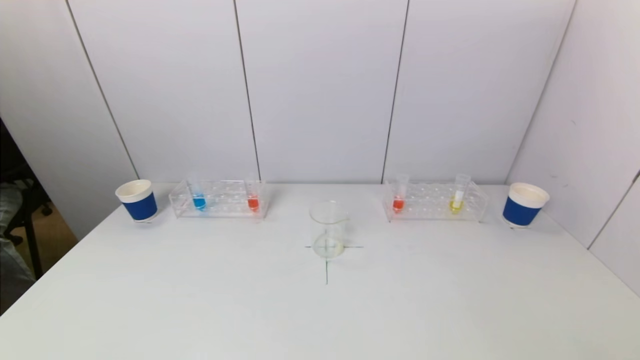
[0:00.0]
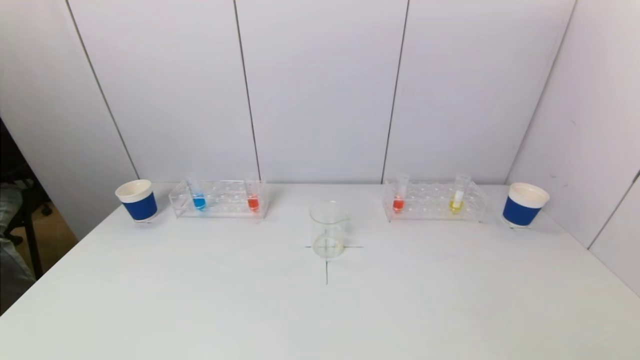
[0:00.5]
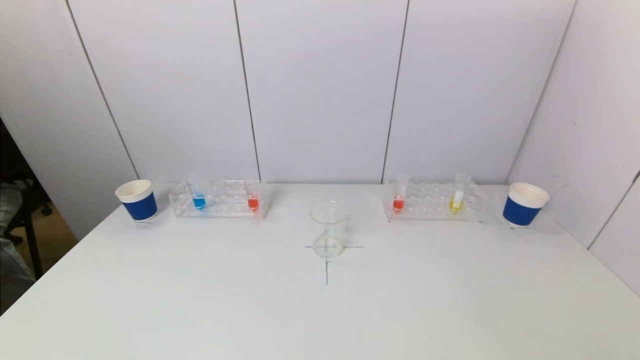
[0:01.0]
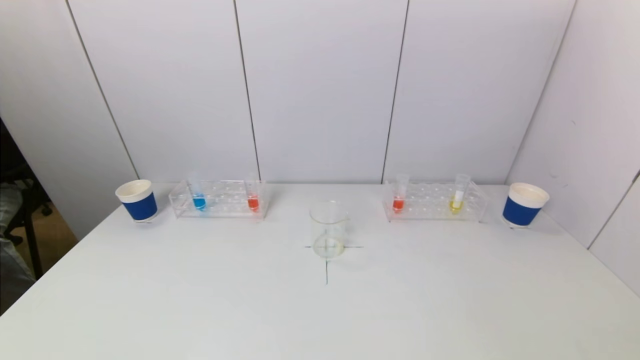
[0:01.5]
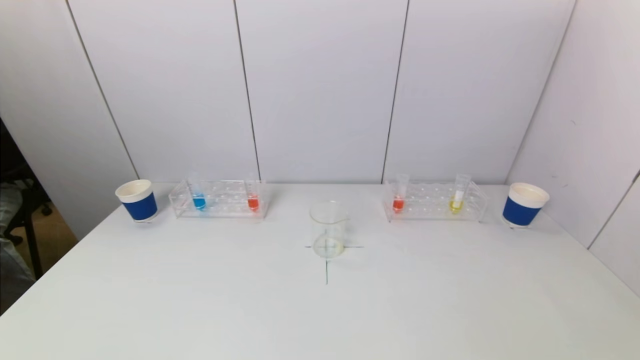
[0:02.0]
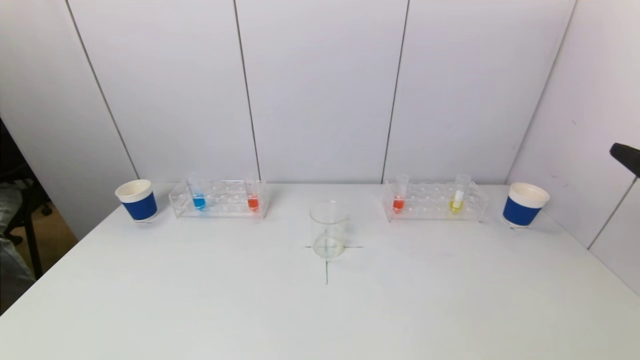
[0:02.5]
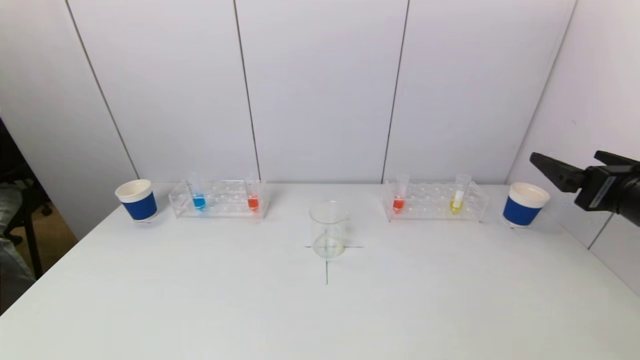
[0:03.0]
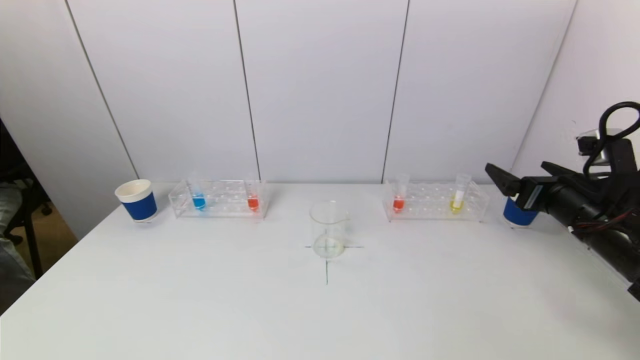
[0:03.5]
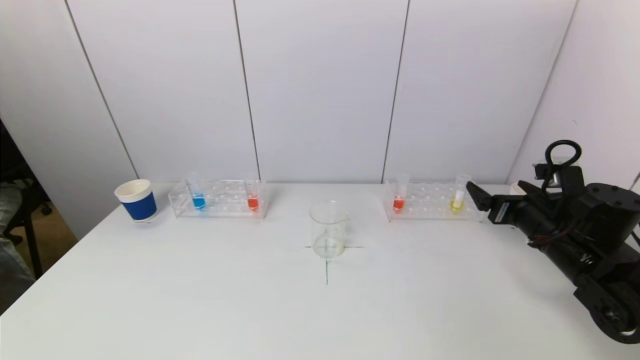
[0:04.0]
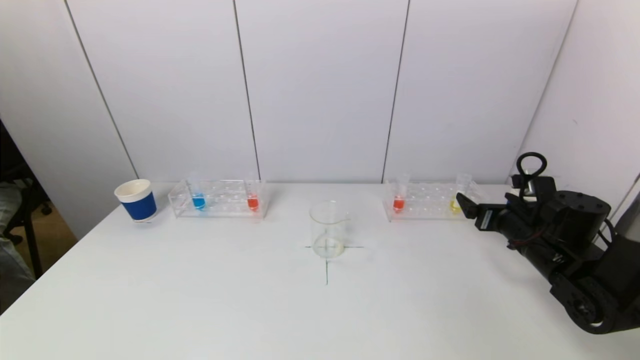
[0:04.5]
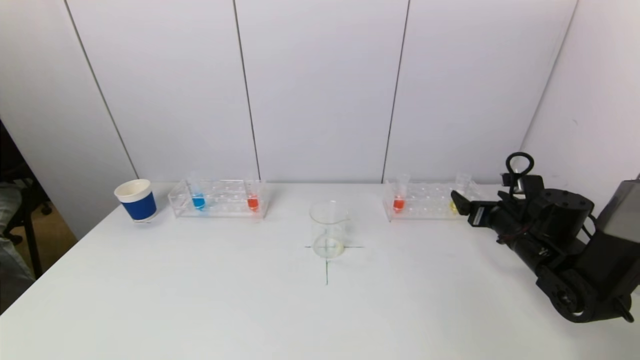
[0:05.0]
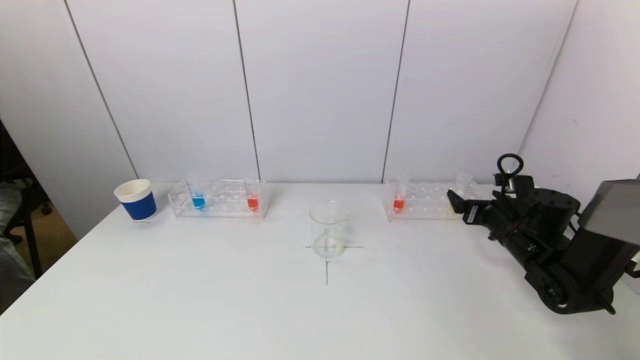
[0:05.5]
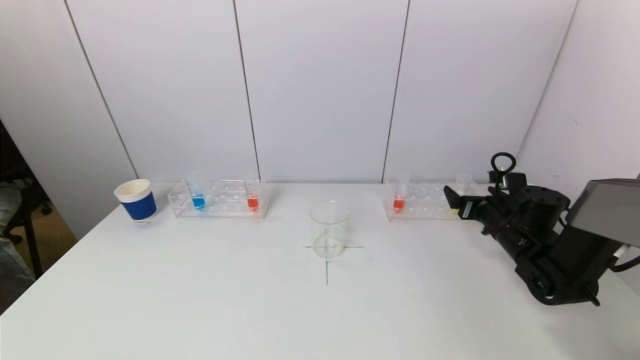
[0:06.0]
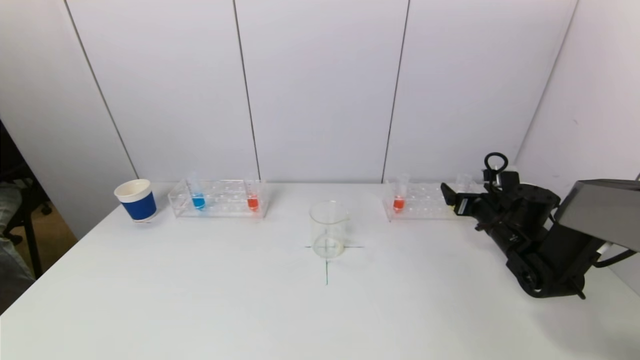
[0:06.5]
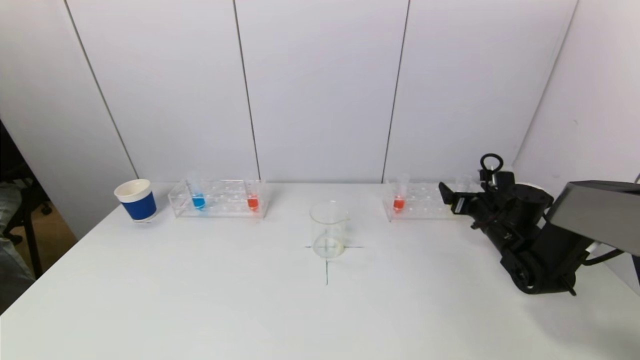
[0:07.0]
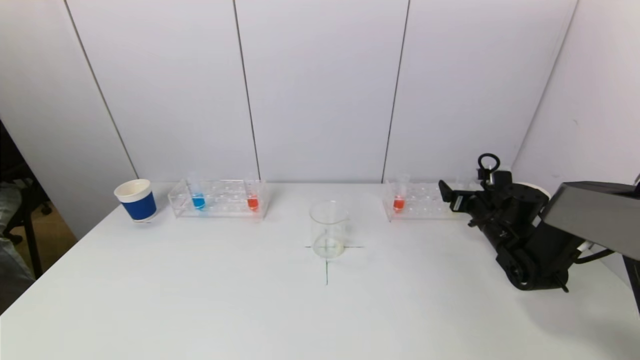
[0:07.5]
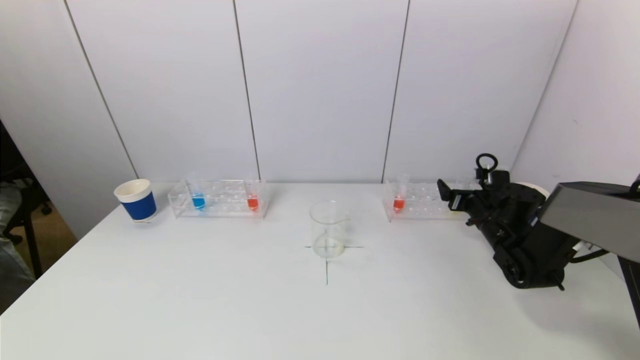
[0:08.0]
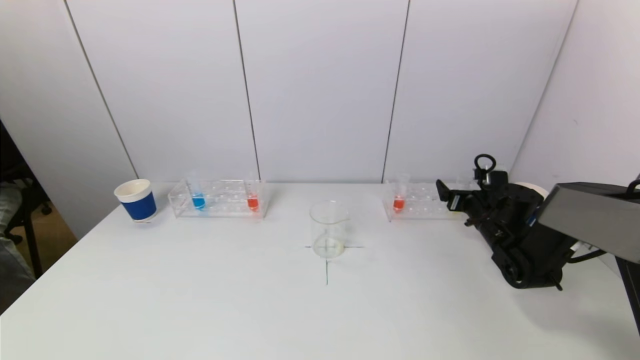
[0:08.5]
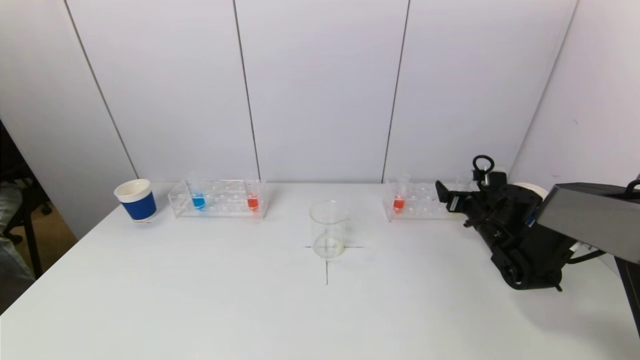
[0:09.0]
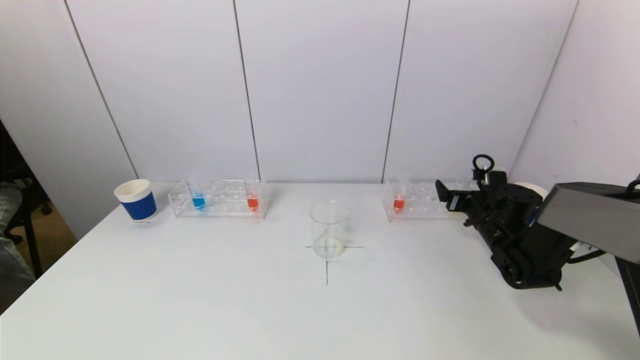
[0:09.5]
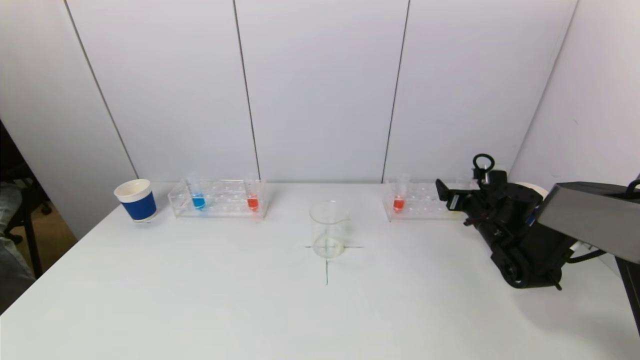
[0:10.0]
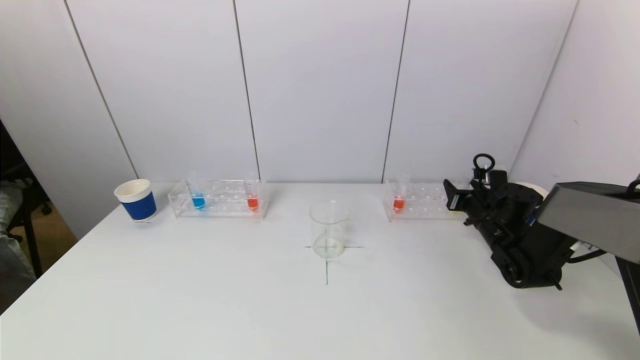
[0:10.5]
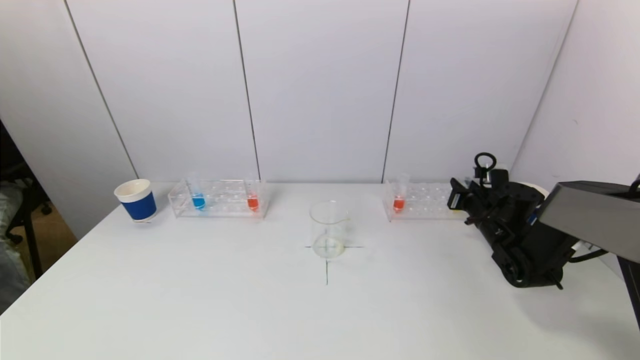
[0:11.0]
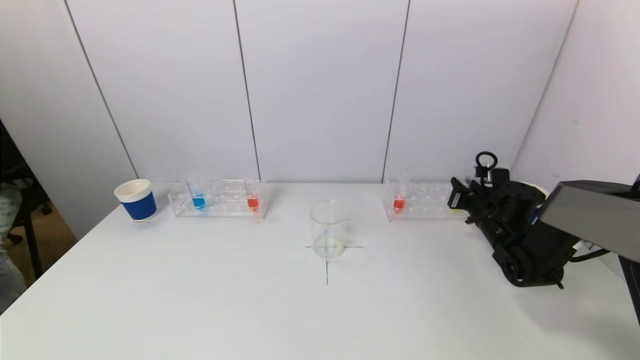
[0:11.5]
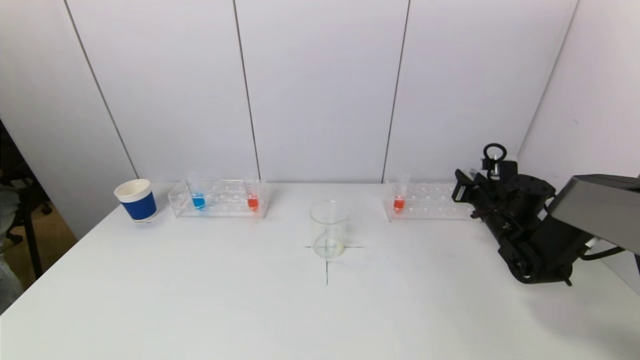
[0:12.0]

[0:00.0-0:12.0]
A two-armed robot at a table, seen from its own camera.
Task of the whole recording: pick up a test tube with pigment on left test tube rack and a test tube with pigment on right test tube rack by grippers and pour them into the beaker.
Step, 0:00.0 to 0:10.5: Grasp the yellow reagent with the right gripper.
0:02.0 to 0:04.0: The right gripper heads forward and downward, covering about 30 cm.
0:04.0 to 0:06.0: The right gripper goes approximately 10 cm forward and downward.
0:06.0 to 0:08.0: The grippers stay close to where they were, moving slightly.
0:08.0 to 0:10.0: Neither gripper changes place.
0:10.0 to 0:12.0: The right gripper closes its fingers.

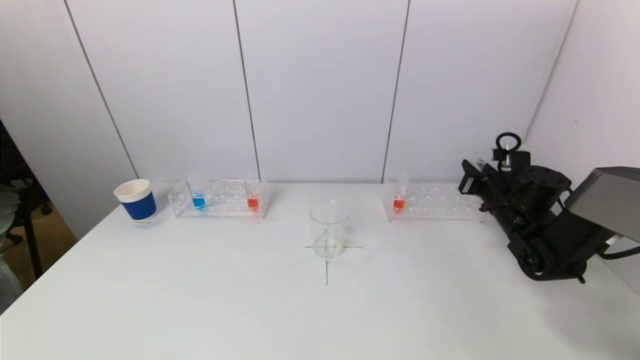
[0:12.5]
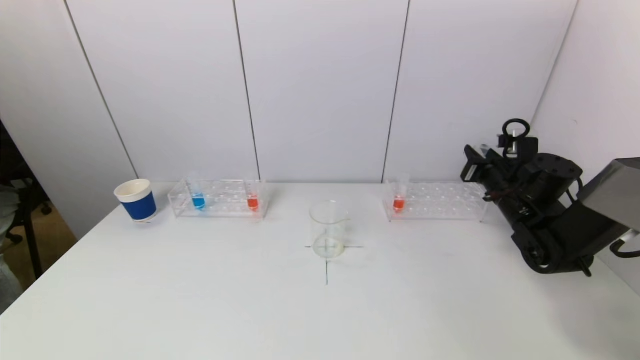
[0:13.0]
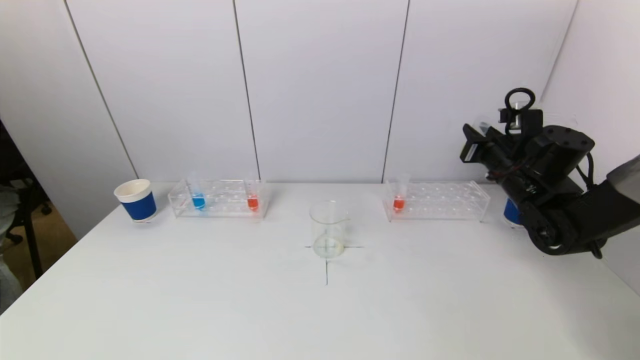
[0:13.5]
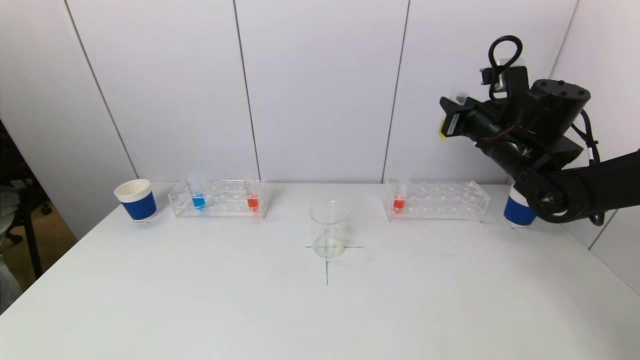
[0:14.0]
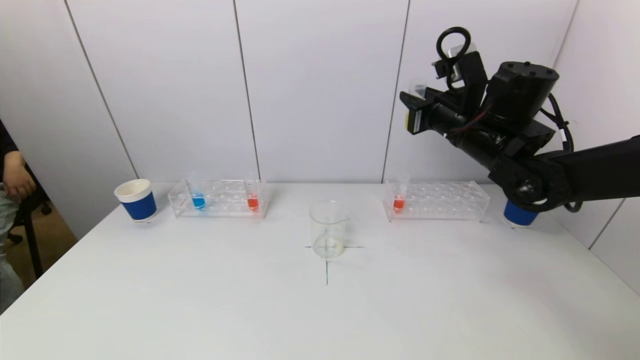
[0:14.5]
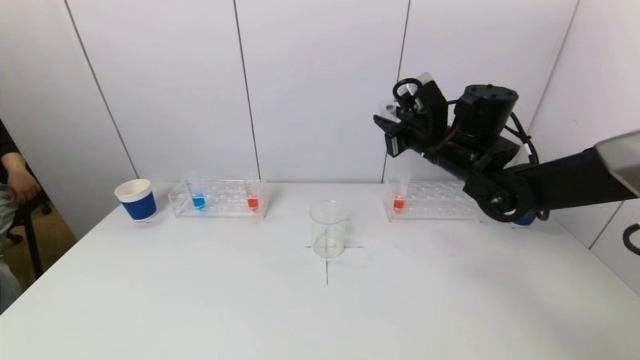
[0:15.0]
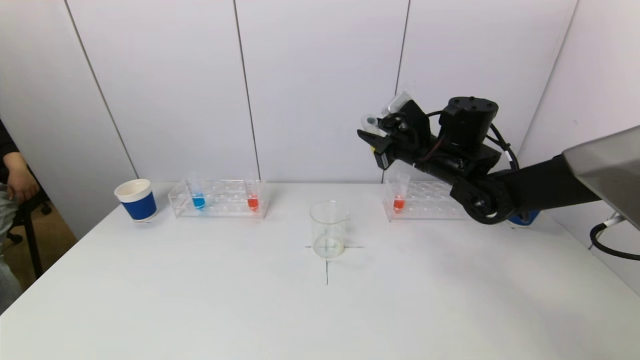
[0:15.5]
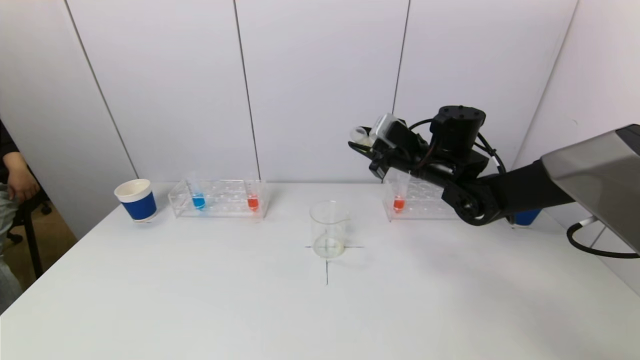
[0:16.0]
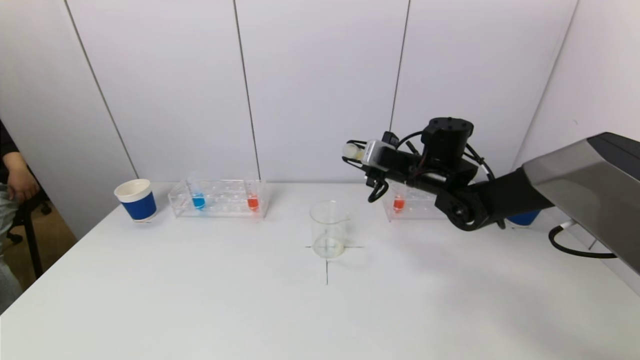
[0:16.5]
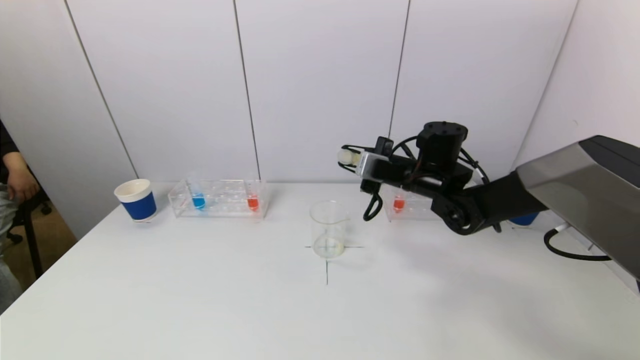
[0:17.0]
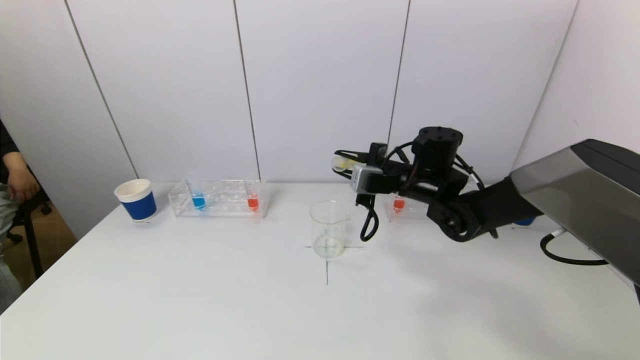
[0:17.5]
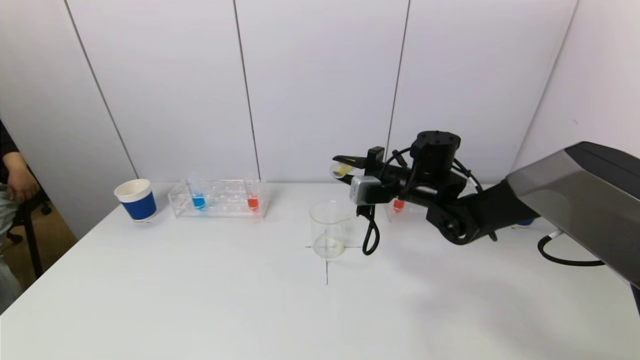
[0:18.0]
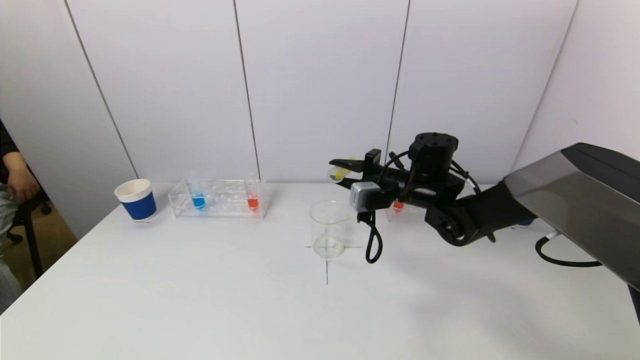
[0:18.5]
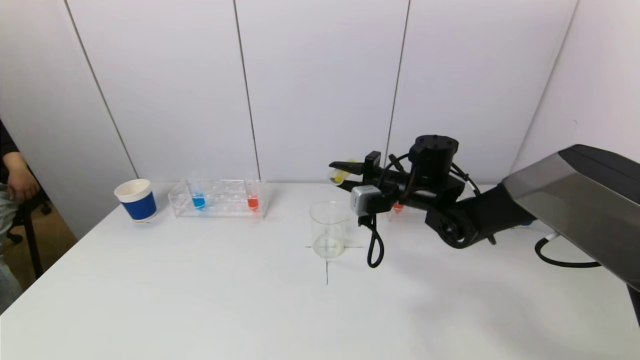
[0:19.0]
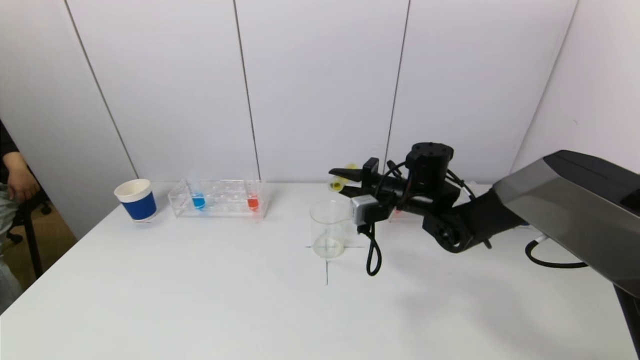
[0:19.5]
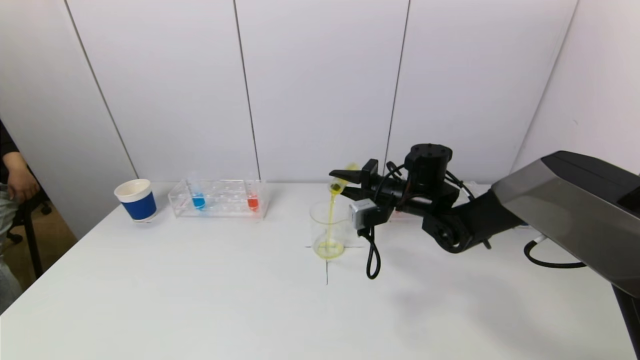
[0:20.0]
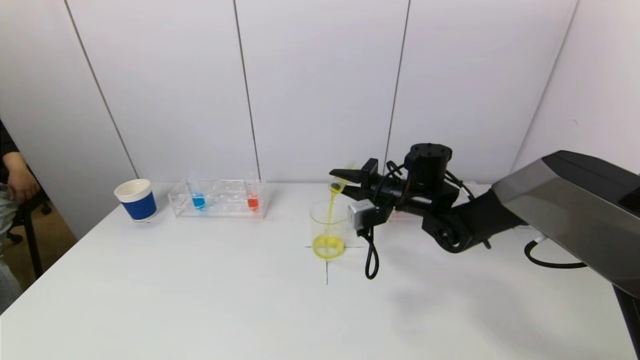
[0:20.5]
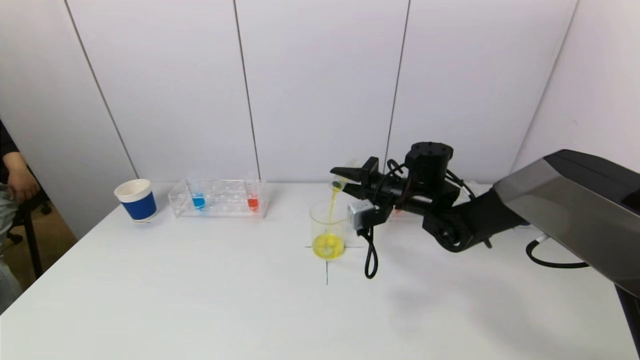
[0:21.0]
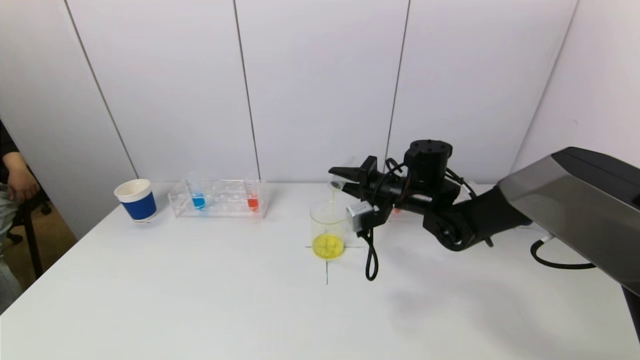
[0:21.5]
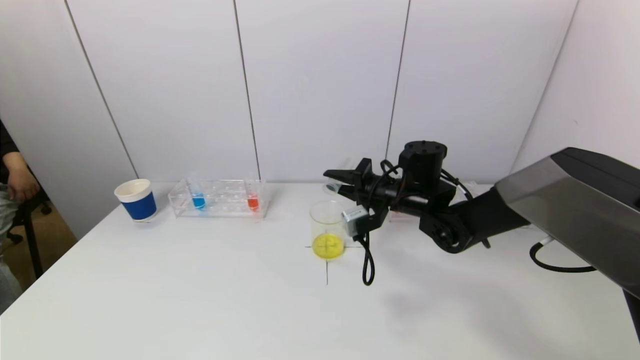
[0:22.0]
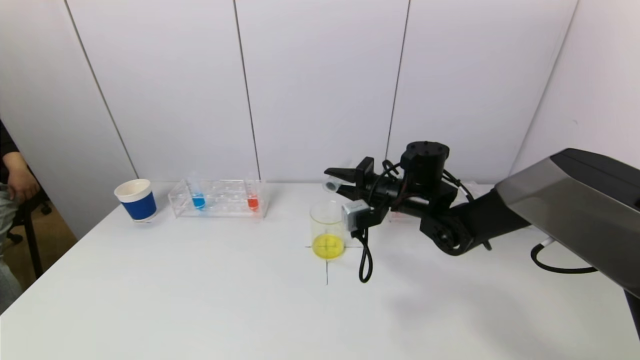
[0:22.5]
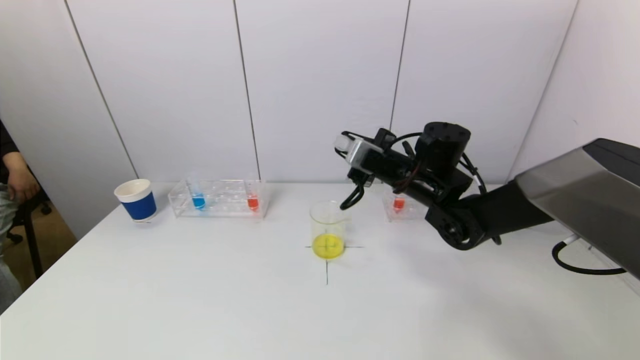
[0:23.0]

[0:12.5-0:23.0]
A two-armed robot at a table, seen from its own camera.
Task of the whole recording: pick up a test tube with pigment on left test tube rack and a test tube with pigment on right test tube rack by grippers and pour them into the beaker.
Step, 0:12.5 to 0:22.0: Pour the yellow reagent into the graduated cylinder with the right gripper.
0:12.5 to 0:14.5: The right gripper moves upward and to the left, some 20 cm.
0:14.5 to 0:16.5: The right gripper moves downward, approximately 10 cm.
0:19.0 to 0:21.0: There are only small adjustments of the grippers.
0:21.0 to 0:23.0: The right gripper moves about 5 cm.
